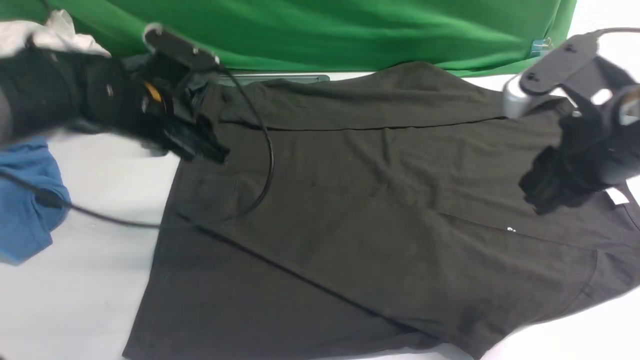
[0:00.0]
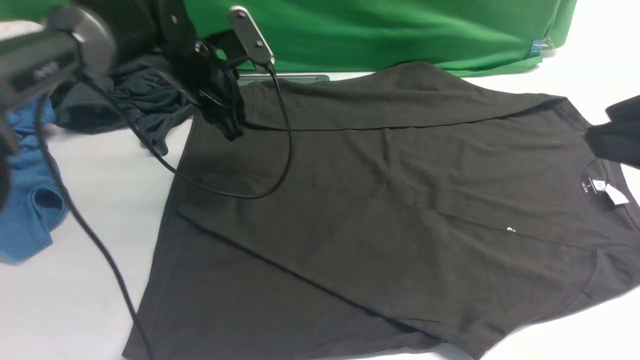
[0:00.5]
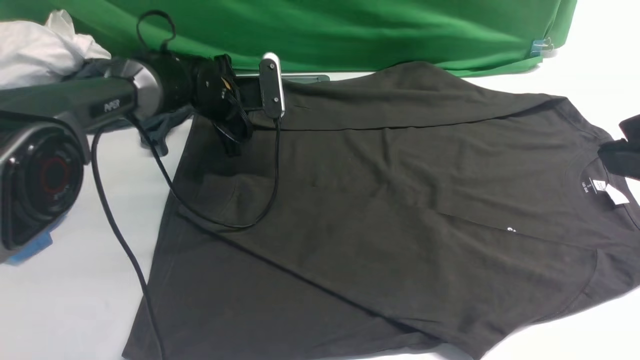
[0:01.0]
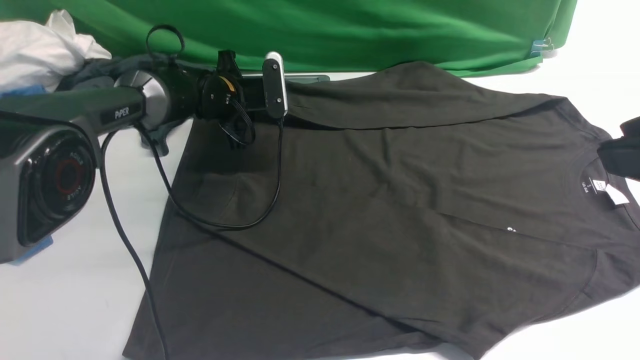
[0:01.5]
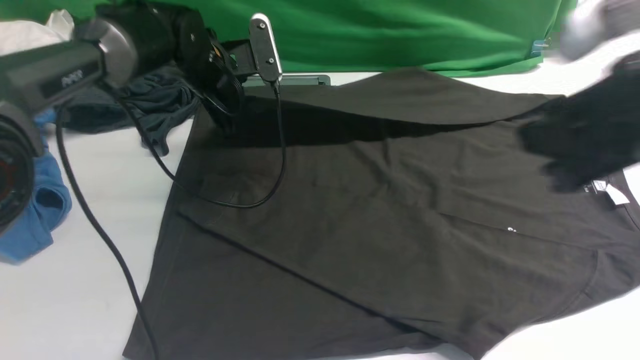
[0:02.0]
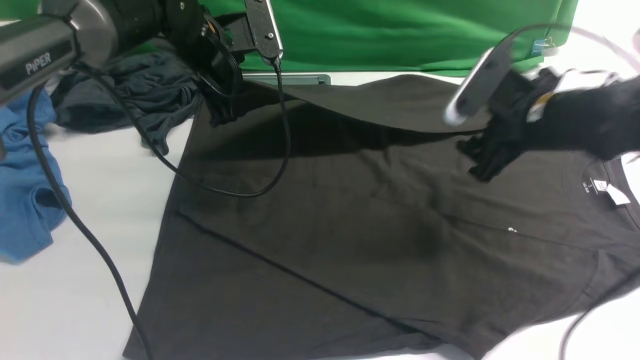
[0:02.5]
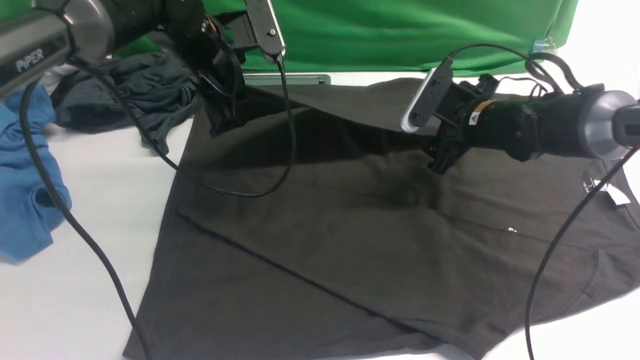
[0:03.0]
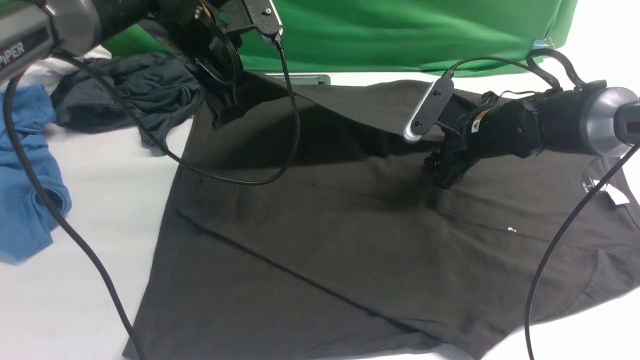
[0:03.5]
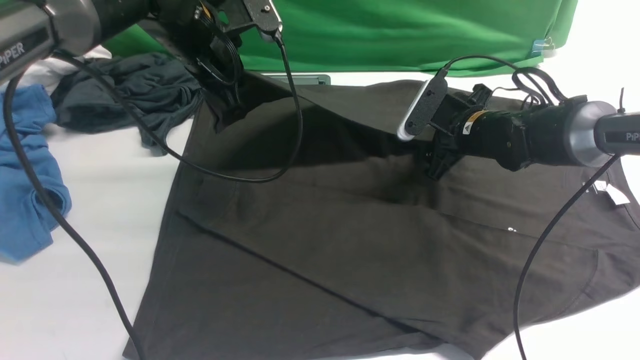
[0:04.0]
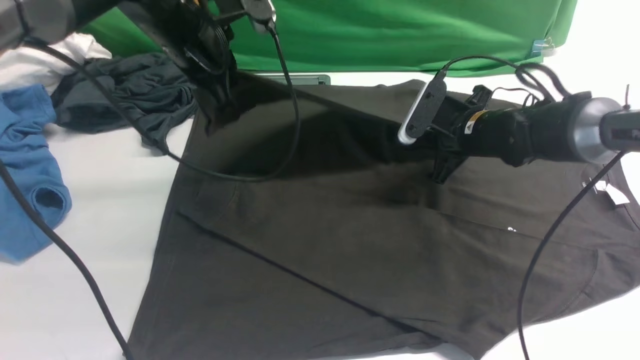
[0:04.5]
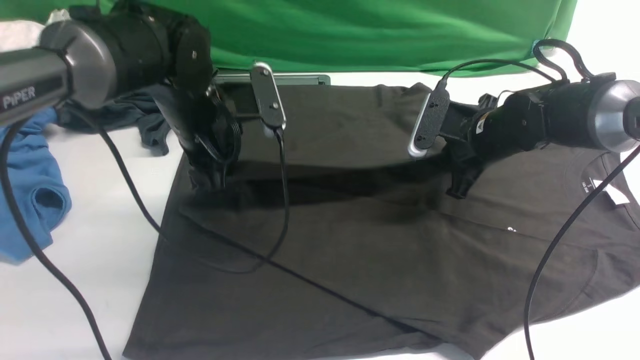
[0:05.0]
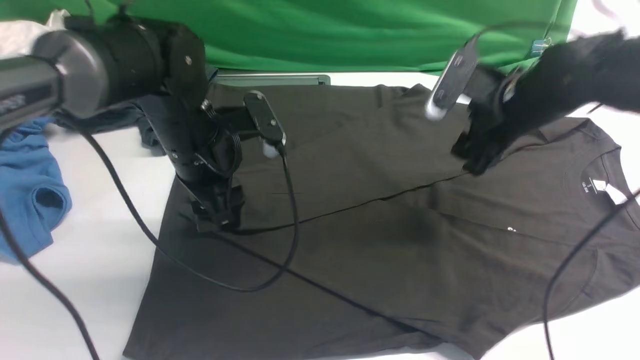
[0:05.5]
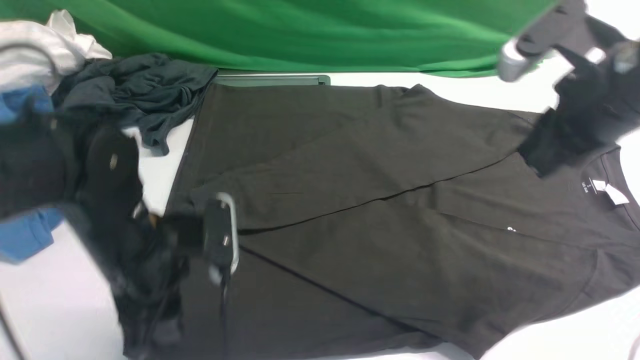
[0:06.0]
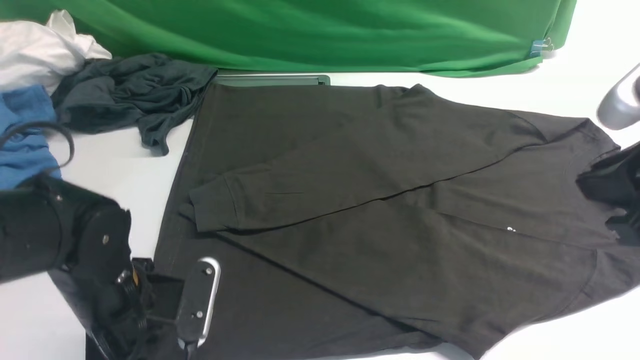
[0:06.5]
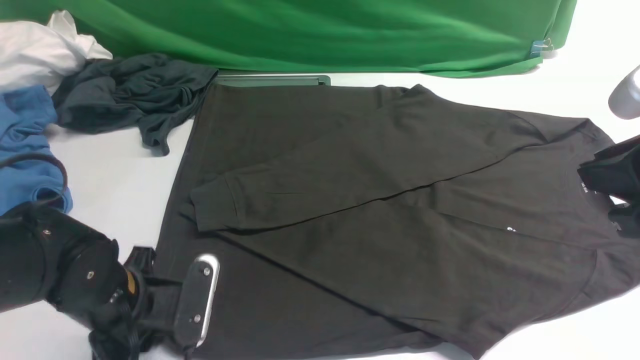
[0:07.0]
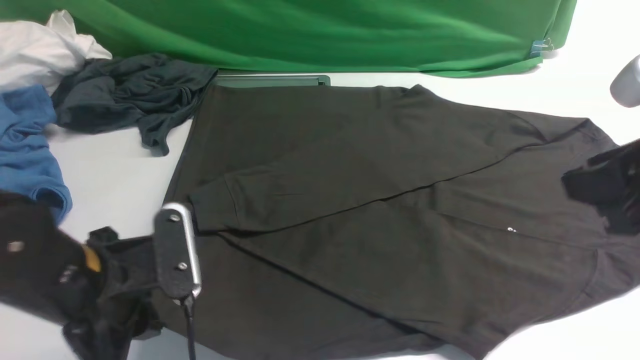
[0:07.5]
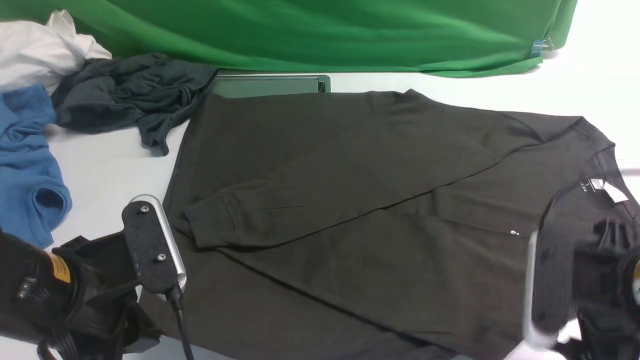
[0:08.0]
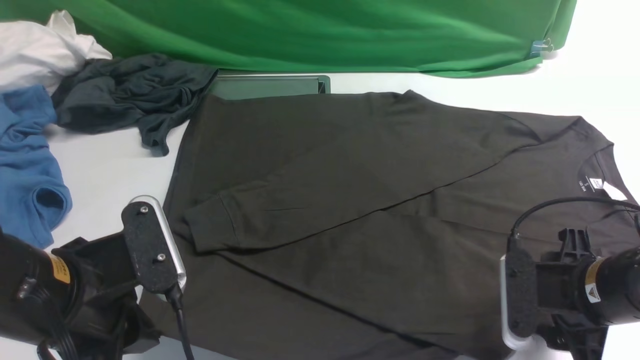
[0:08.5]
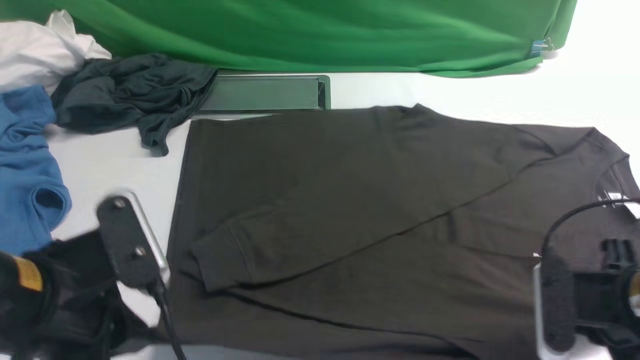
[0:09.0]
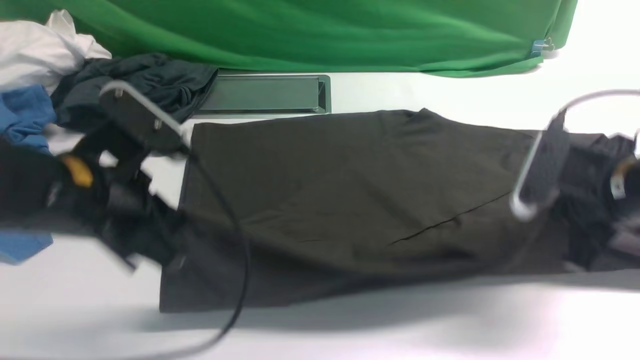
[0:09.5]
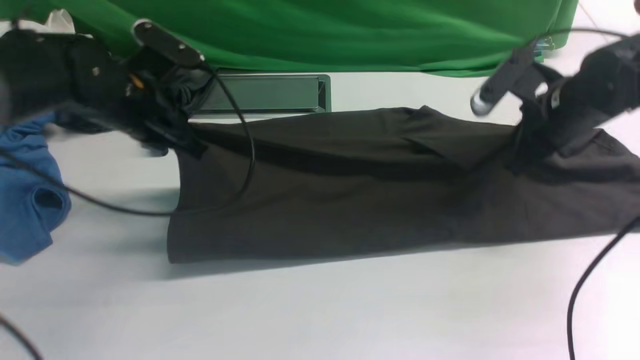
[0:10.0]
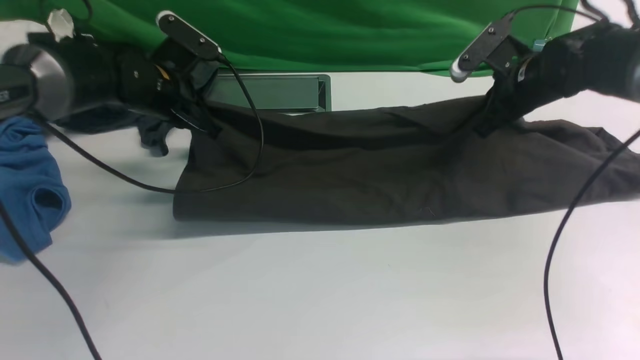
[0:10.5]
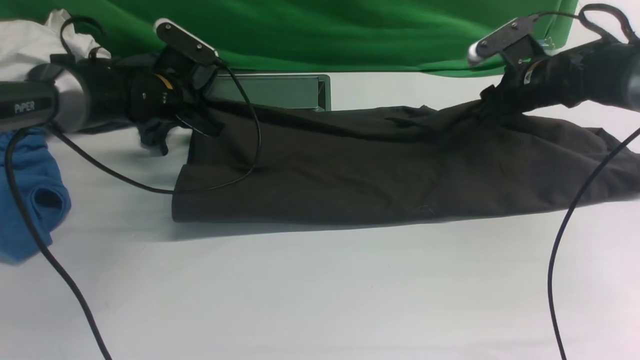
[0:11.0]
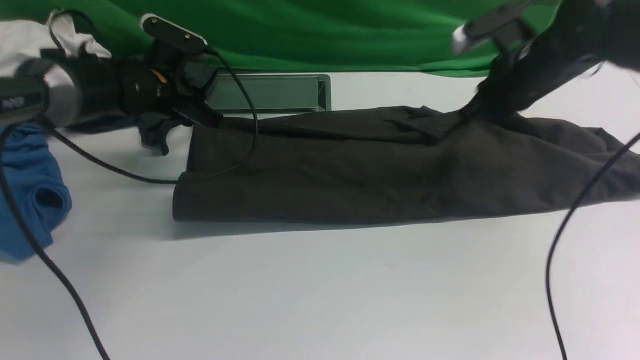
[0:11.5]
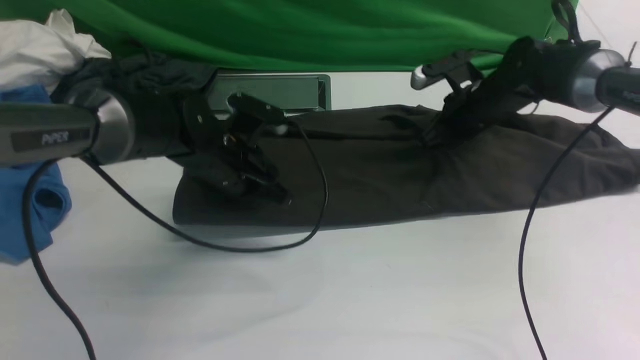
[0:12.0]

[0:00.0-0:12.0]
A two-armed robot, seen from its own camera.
Step, 0:00.5 to 0:01.5: use the left arm to clamp the cuff farthest from it.
Step, 0:02.0 to 0:05.0: use the left arm to drag and drop the cuff onto the cuff closest to the left arm.
Step, 0:05.5 to 0:09.0: use both arms simultaneously to clamp the lower edge of the clothing fabric.
0:00.0 to 0:02.0: The left gripper travels forward by roughly 10 cm, and closes its fingers. The right gripper reaches some 10 cm backward, then returns.
0:02.0 to 0:04.0: The left gripper shifts some 5 cm upward; the right gripper goes some 30 cm downward and forward.
0:04.0 to 0:06.0: The right gripper moves upward and backward, approximately 25 cm, and closes. The left gripper moves backward and downward, about 20 cm, and opens.
0:06.0 to 0:08.0: The left gripper moves backward, approximately 10 cm, and closes its fingers. Meanwhile the right gripper shifts about 15 cm downward and backward, and opens up.
0:08.0 to 0:10.0: Both grippers travel together forward, approximately 20 cm. The right gripper closes.
0:10.0 to 0:12.0: The left gripper is displaced downward and to the right by some 10 cm, and opens, then closes again. Meanwhile the right gripper moves forward, downward and to the left, roughly 15 cm, and opens and closes again.

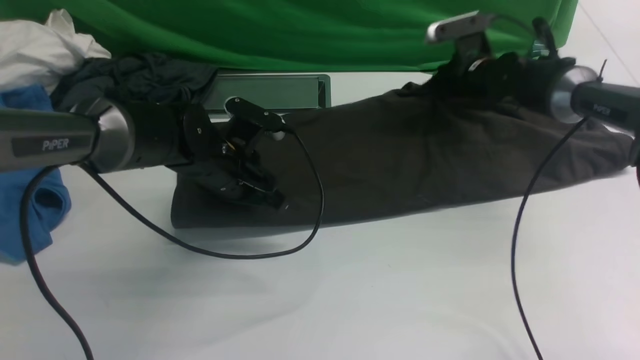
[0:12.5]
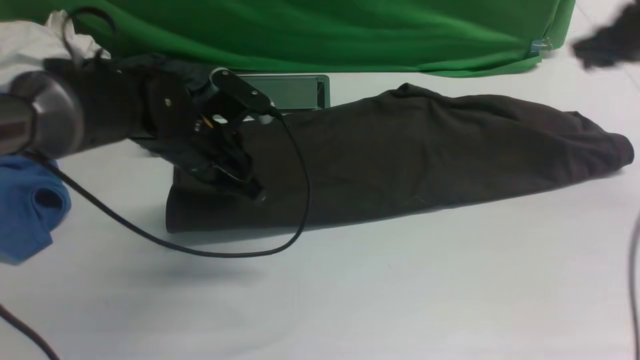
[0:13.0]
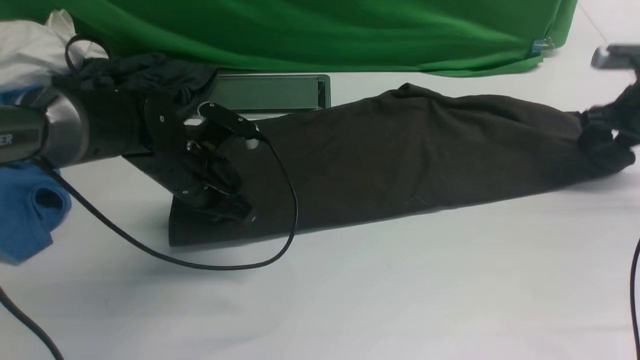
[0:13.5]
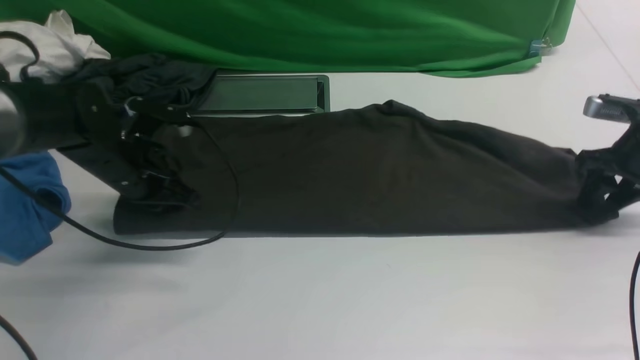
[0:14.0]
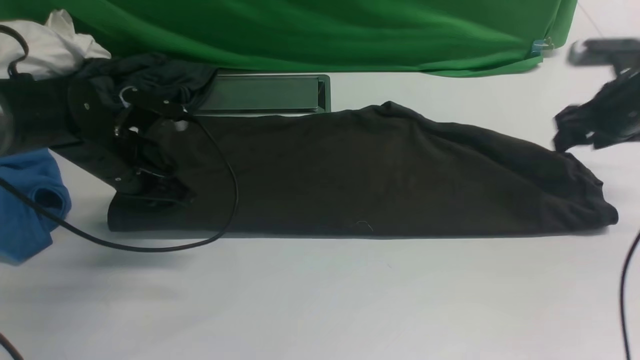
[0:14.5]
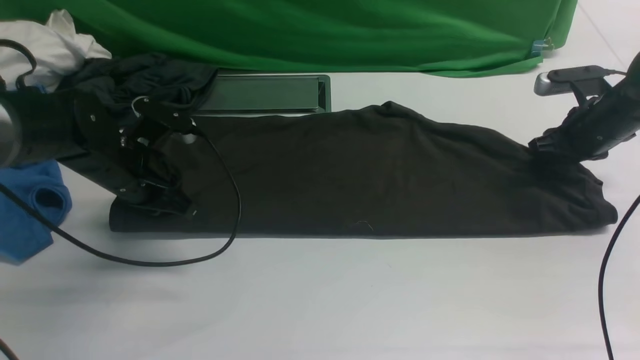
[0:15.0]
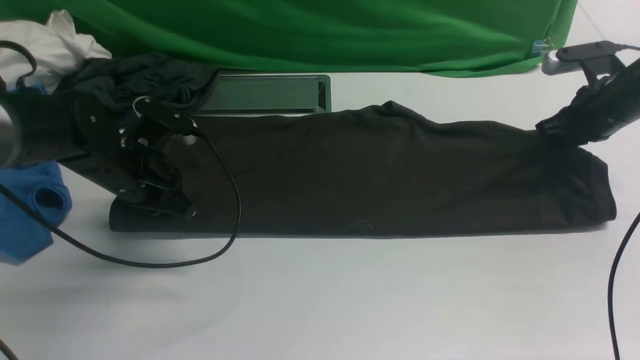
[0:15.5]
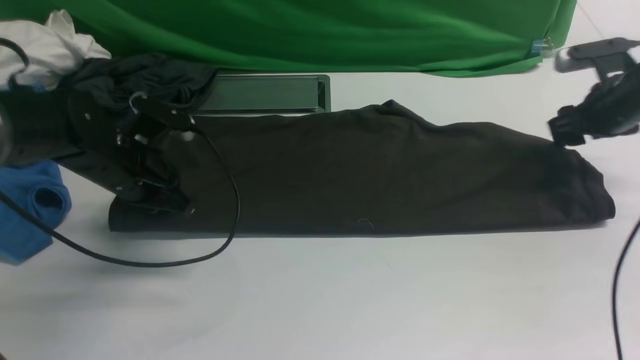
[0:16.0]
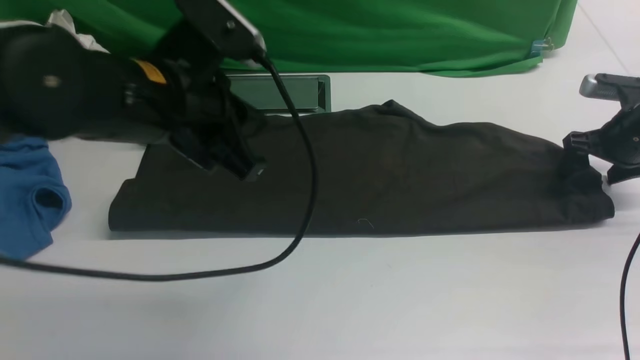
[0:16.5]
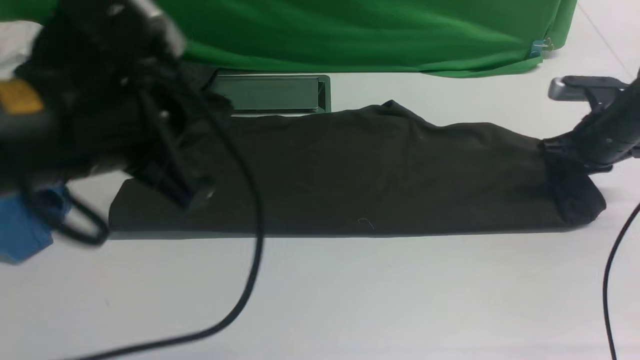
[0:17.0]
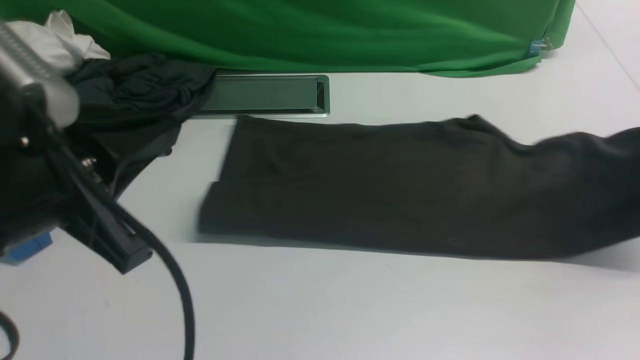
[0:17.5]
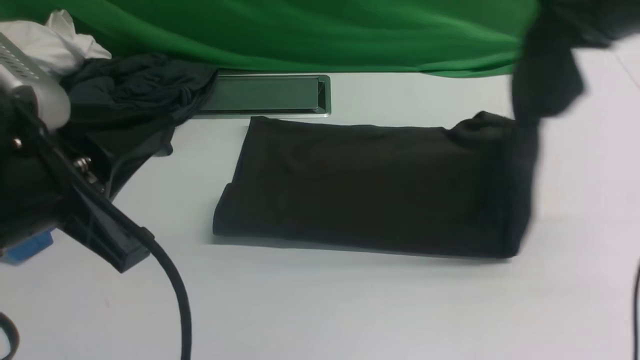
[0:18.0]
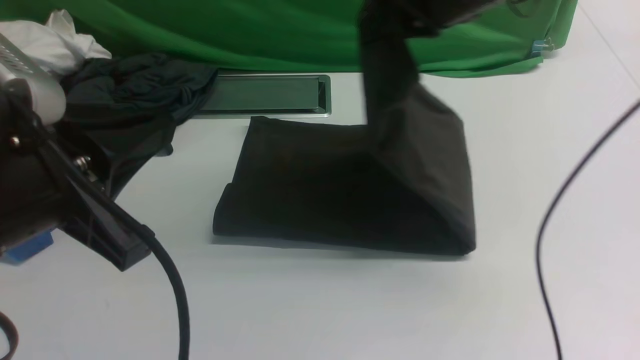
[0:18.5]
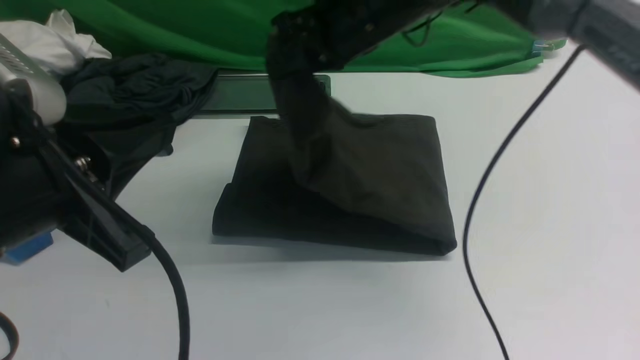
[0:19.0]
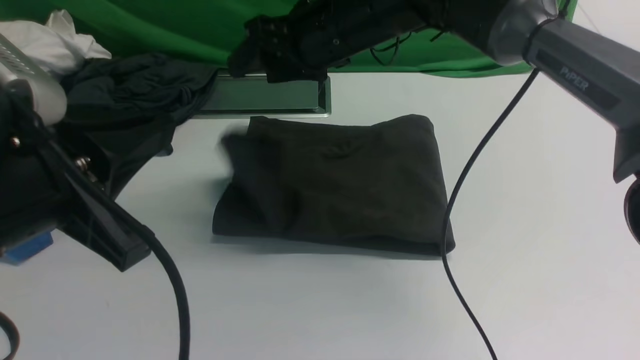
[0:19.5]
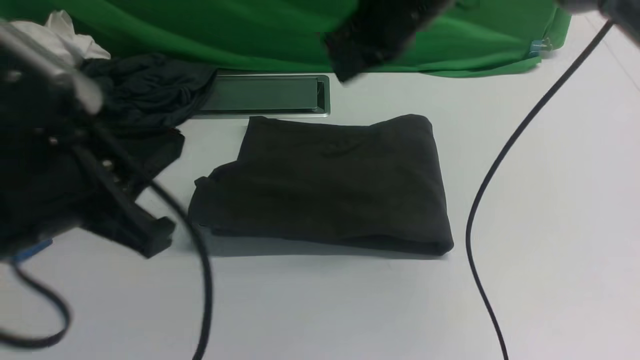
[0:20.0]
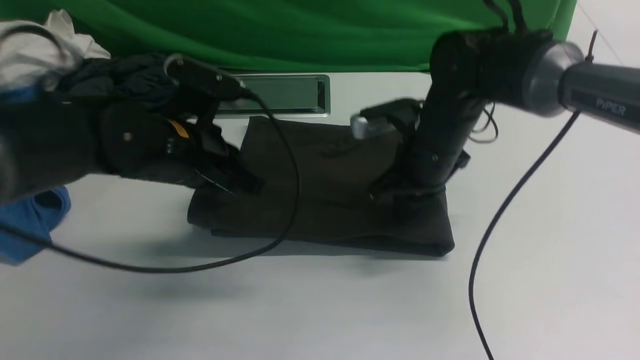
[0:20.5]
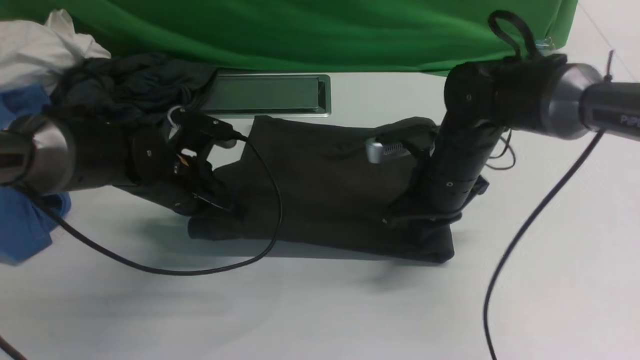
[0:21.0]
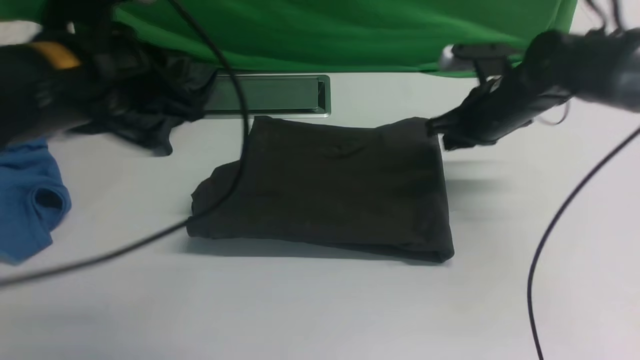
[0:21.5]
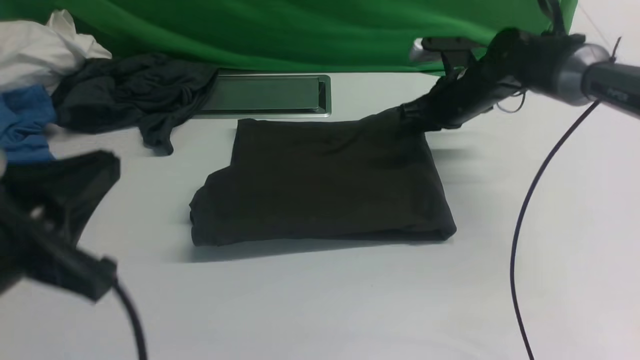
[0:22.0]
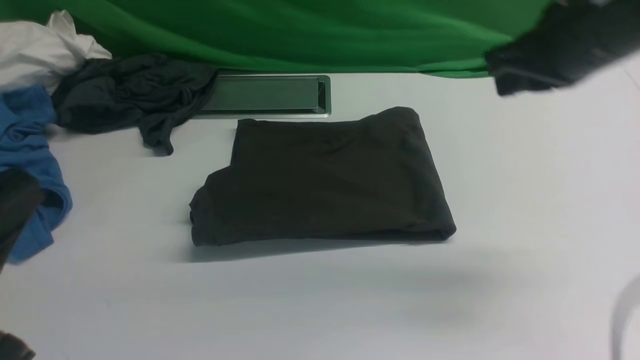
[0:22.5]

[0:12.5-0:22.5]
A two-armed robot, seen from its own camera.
Step, 0:12.5 to 0:15.5: use both arms to drag the lower edge of the fabric forward and fold it over the upper edge.
Step, 0:16.0 to 0:17.0: use the right arm to clamp the right edge of the fabric.
Step, 0:17.5 to 0:20.0: use the right arm to drag the right edge of the fabric to the left and folds it over the left edge.
0:12.5 to 0:14.5: The right gripper shifts about 15 cm to the right and backward, and opens its fingers; the left gripper shifts some 10 cm to the left.
0:14.5 to 0:16.5: The right gripper closes and opens again, while the left gripper is displaced upward, to the right and backward by about 20 cm.
0:16.5 to 0:18.5: The right gripper goes some 30 cm to the left and upward, and closes its fingers; the left gripper moves backward, roughly 15 cm.
0:18.5 to 0:20.5: The right gripper heads downward, covering some 15 cm, and opens and closes again, while the left gripper is displaced forward and downward by approximately 20 cm.
0:20.5 to 0:22.5: The left gripper travels backward and upward by some 25 cm. The right gripper goes approximately 20 cm upward, to the right and backward.
